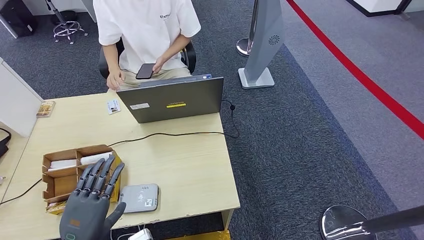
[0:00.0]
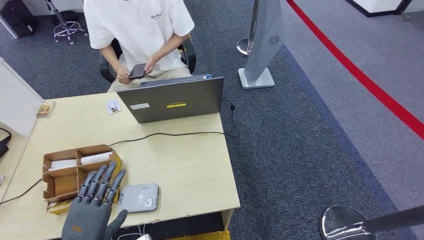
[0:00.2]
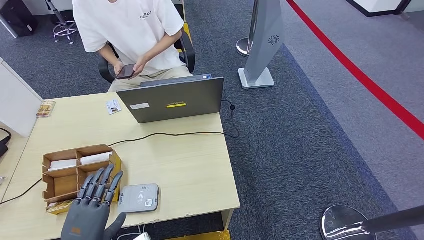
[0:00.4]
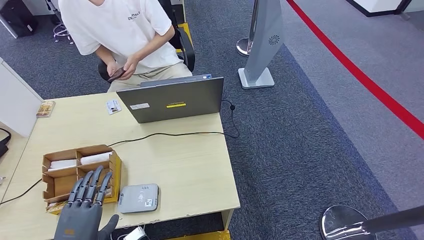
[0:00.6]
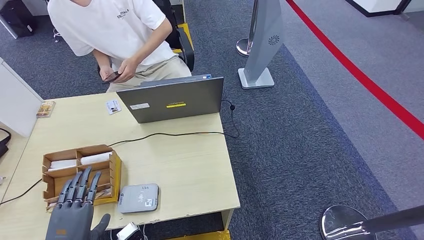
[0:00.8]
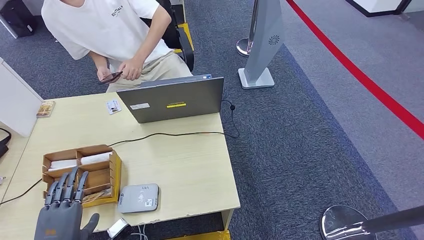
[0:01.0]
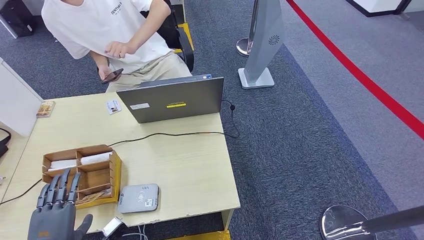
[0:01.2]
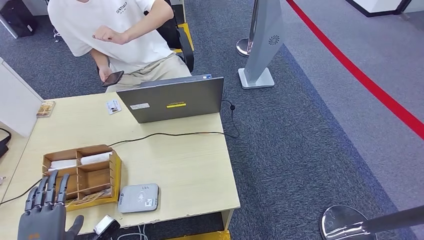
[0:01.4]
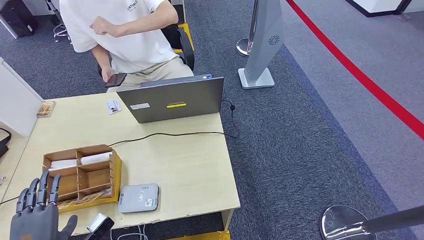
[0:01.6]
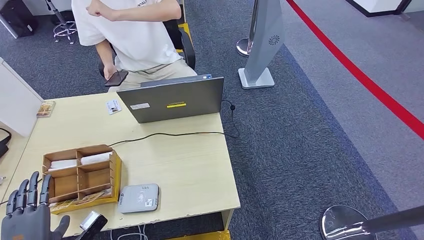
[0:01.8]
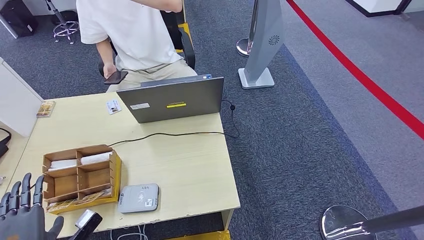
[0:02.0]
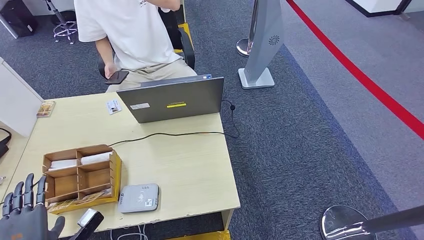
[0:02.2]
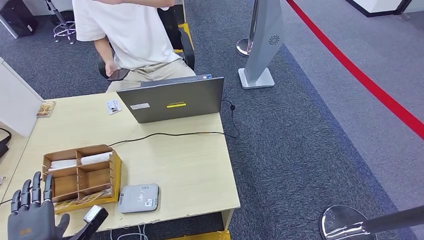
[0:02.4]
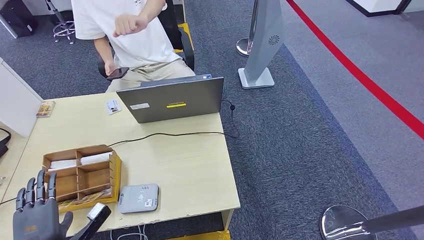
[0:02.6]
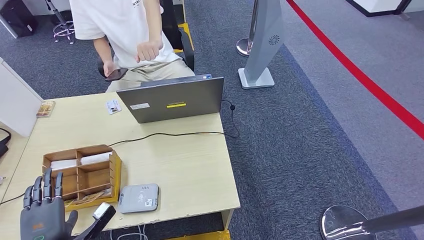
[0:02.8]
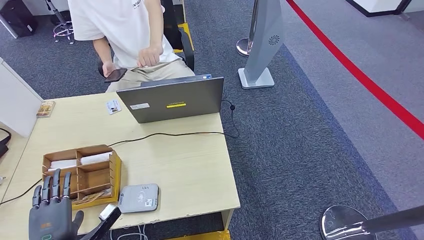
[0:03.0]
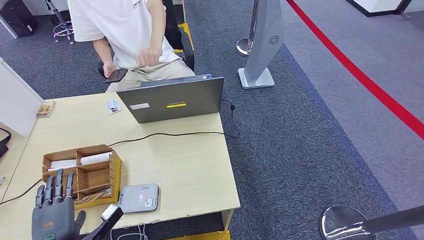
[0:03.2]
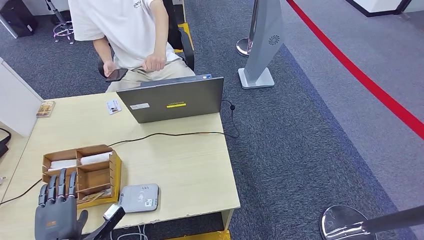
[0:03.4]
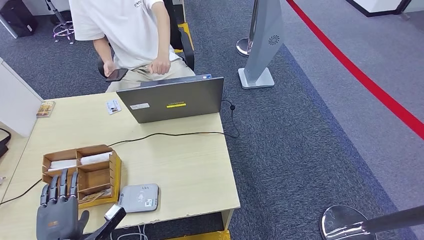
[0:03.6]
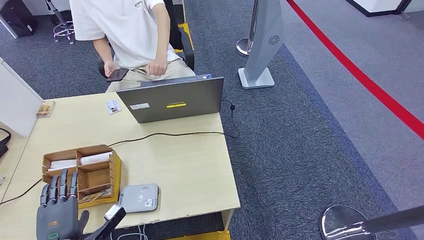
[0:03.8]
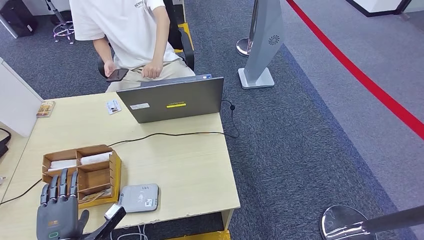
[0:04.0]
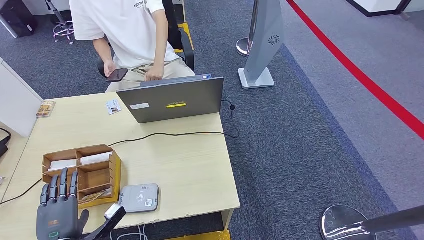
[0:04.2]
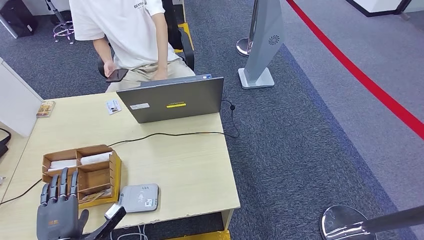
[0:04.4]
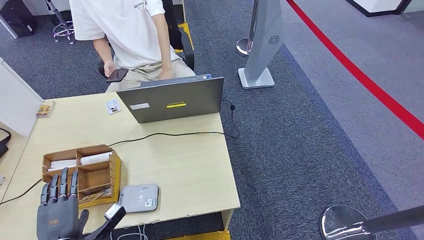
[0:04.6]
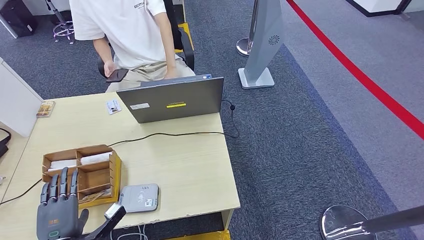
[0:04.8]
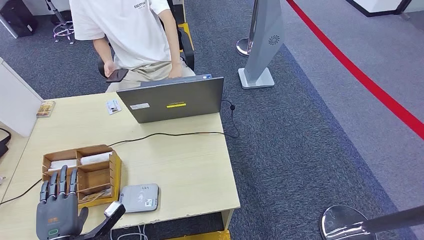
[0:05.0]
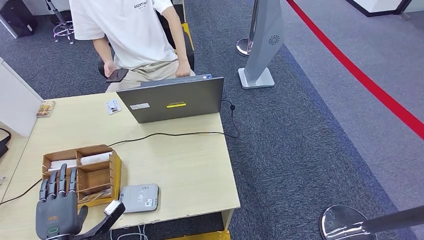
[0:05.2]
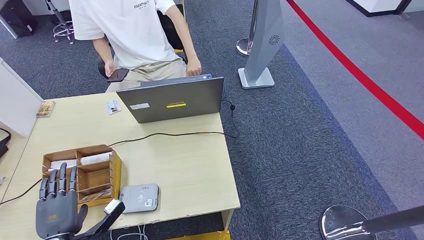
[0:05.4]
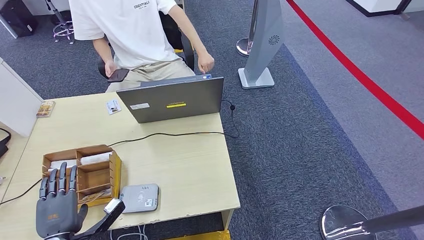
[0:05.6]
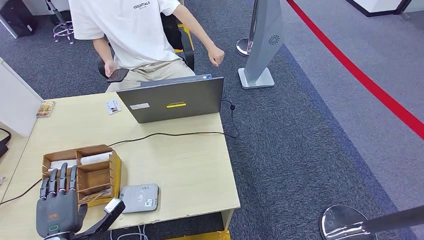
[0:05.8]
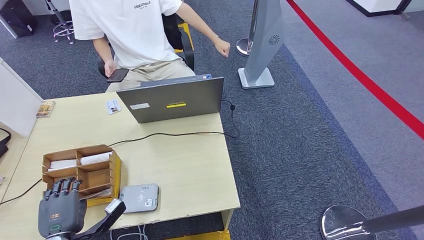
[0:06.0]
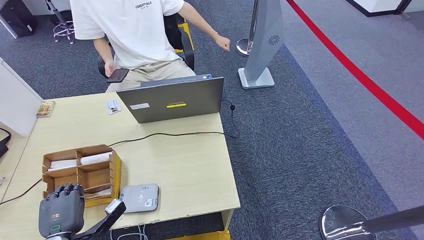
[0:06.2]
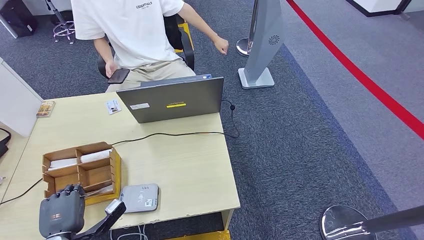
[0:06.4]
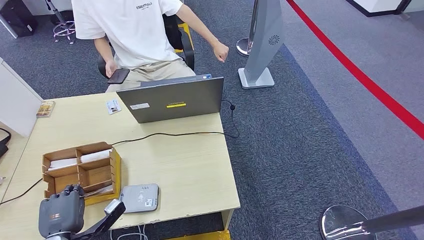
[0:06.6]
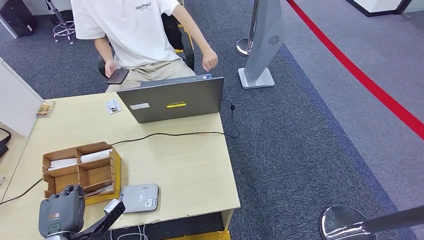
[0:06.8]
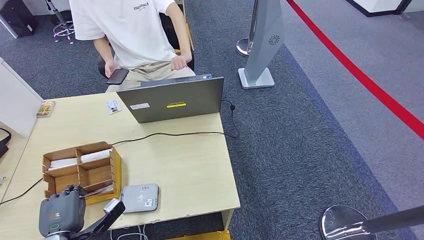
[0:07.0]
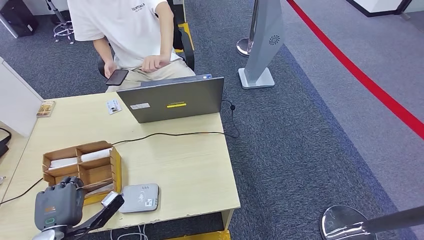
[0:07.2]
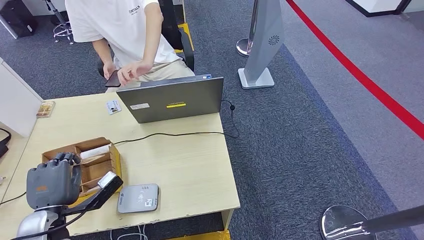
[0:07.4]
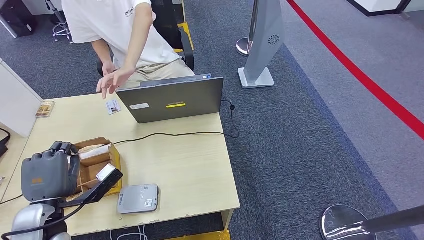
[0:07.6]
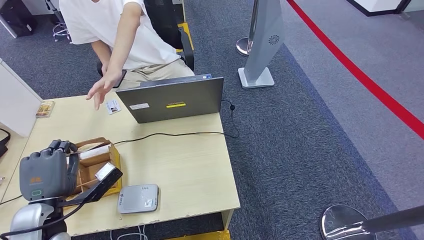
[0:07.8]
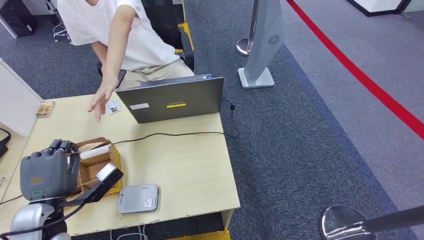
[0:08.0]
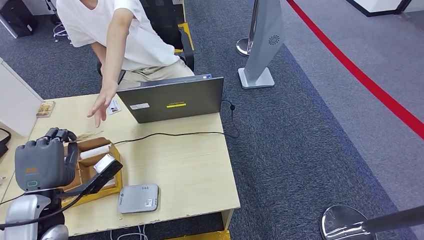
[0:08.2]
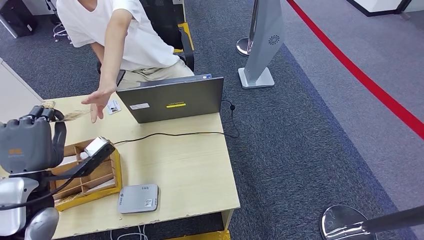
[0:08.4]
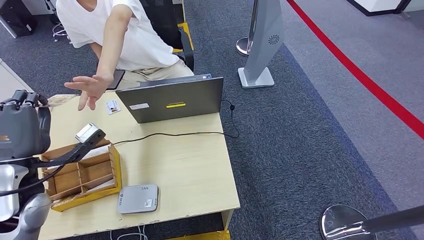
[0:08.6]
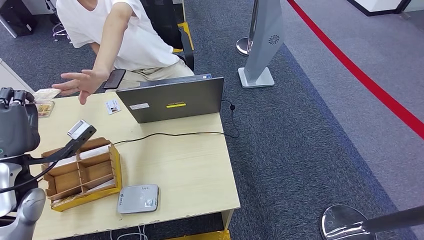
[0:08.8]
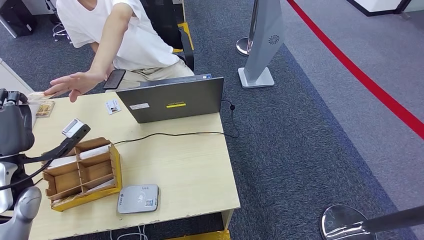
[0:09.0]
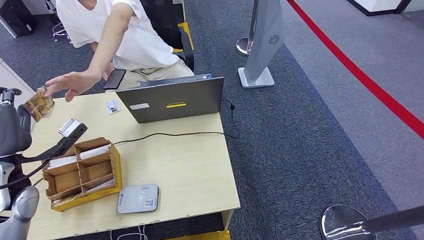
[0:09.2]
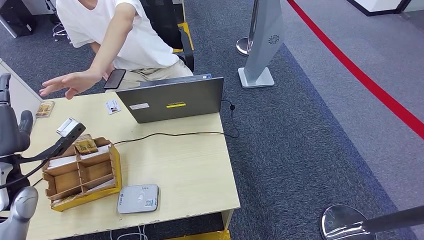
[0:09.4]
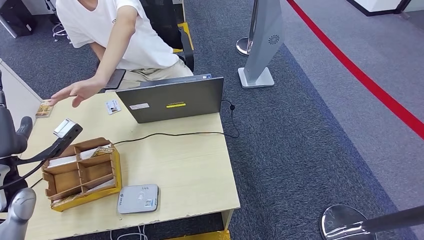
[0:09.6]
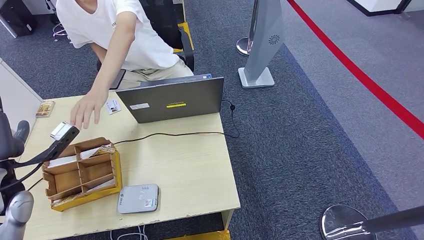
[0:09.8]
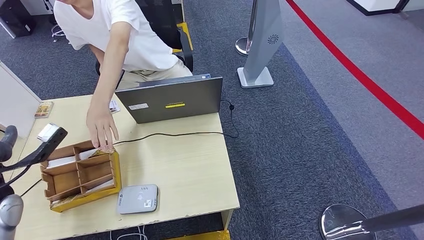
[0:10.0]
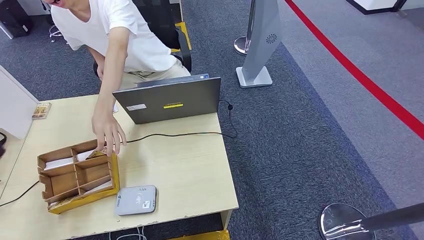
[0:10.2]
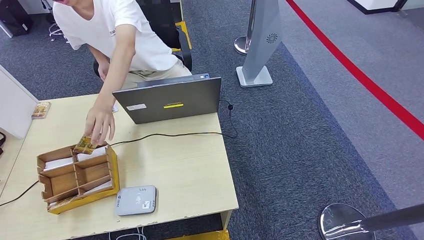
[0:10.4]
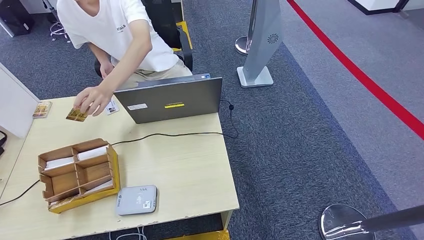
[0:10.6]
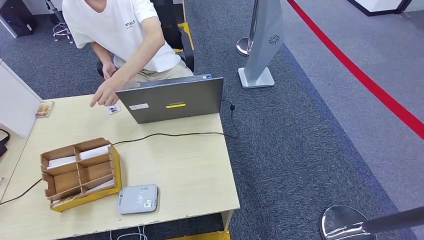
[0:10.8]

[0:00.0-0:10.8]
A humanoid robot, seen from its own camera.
Step, 0:00.0 to 0:08.0: Pick up the room key from the key card box.
Step, 0:08.2 to 0:10.8: Hand the room key to the person.
0:00.0 to 0:01.6: The left hand moves to the left, some 5 cm.
0:01.6 to 0:03.0: The left hand shifts by some 5 cm.
0:03.0 to 0:04.6: The two hands keep their place.
0:04.6 to 0:06.2: Both hands stay about where they are.
0:06.2 to 0:07.8: The left hand travels upward by approximately 10 cm.
0:07.8 to 0:09.2: The left hand shifts approximately 10 cm forward, upward and to the left.
0:09.2 to 0:10.8: The left hand shifts approximately 50 cm to the left and backward.
